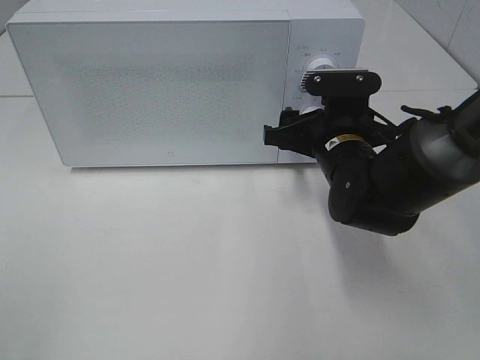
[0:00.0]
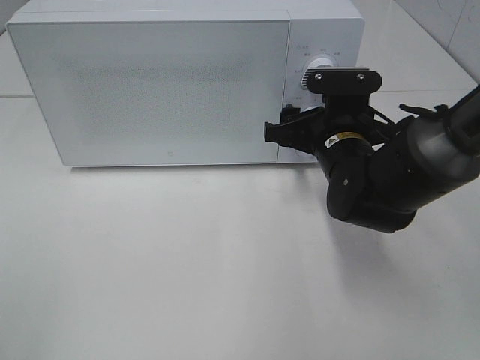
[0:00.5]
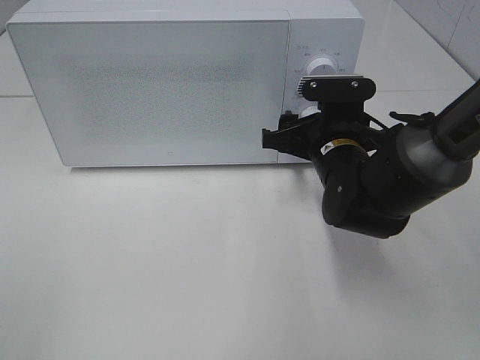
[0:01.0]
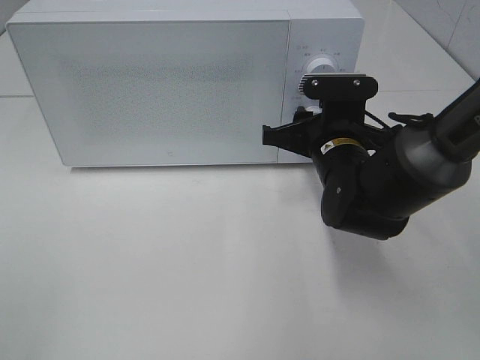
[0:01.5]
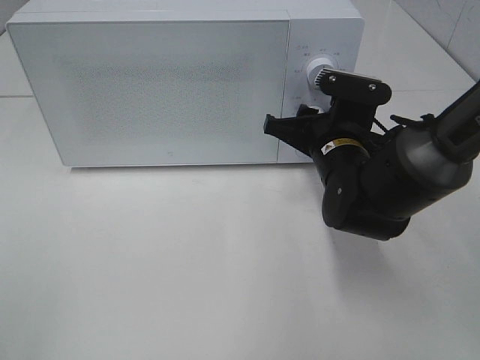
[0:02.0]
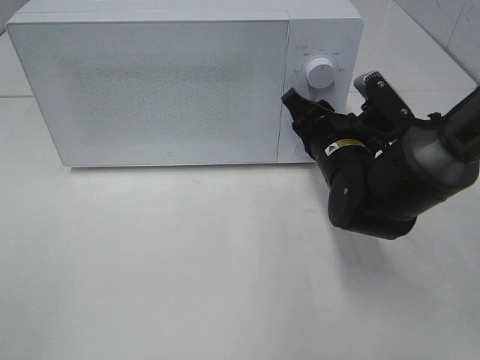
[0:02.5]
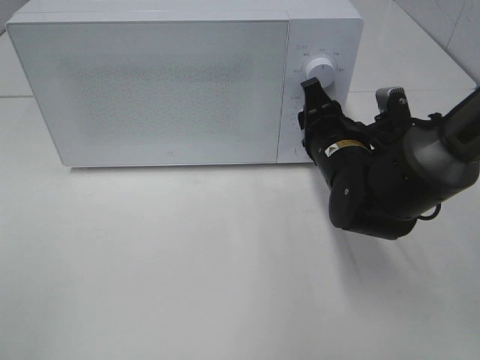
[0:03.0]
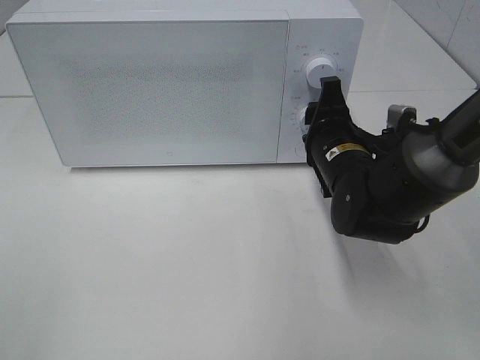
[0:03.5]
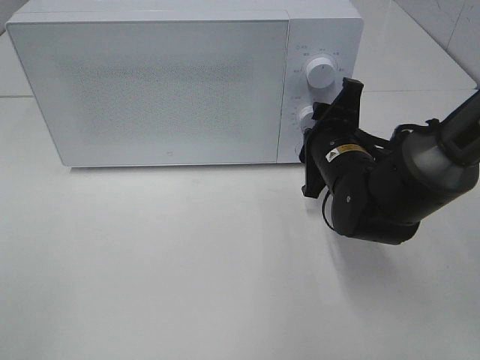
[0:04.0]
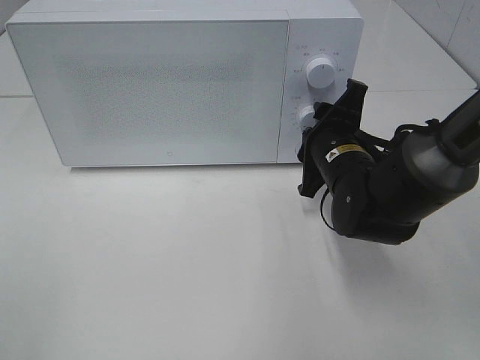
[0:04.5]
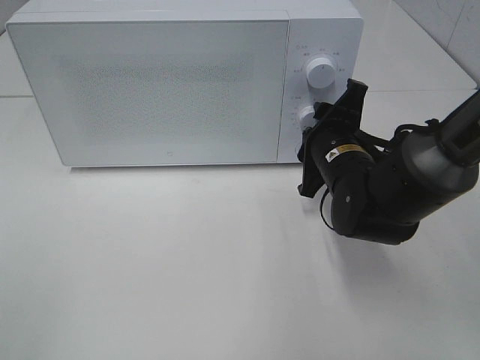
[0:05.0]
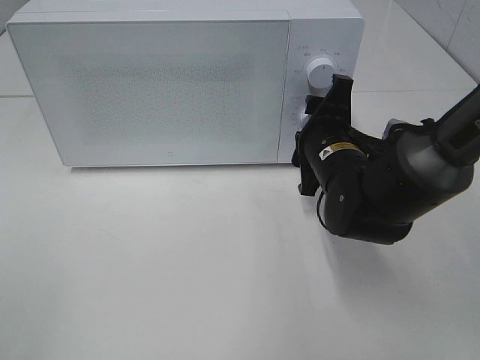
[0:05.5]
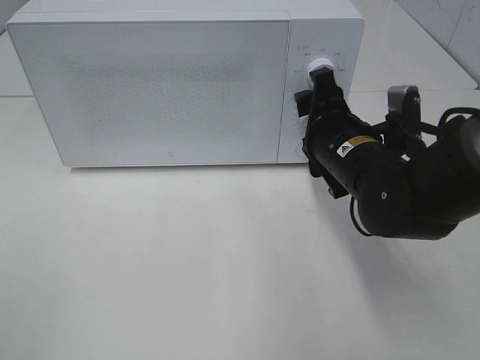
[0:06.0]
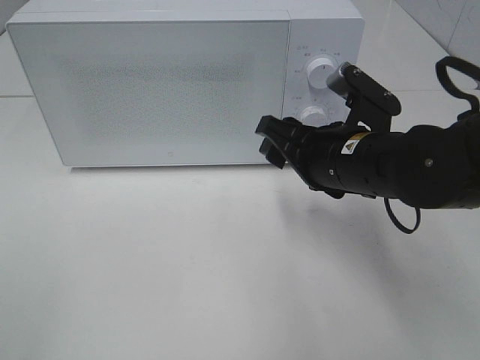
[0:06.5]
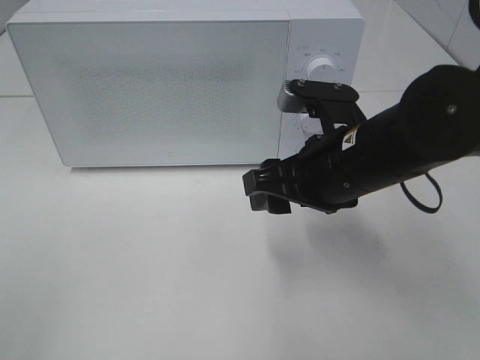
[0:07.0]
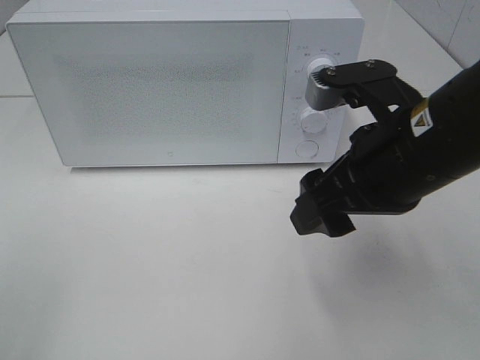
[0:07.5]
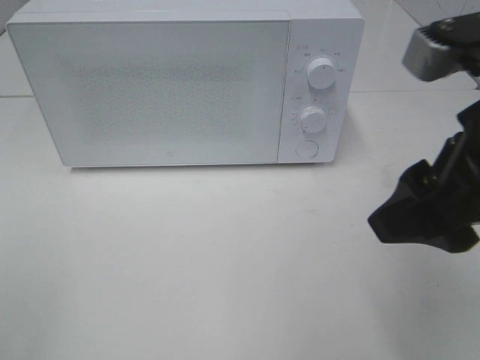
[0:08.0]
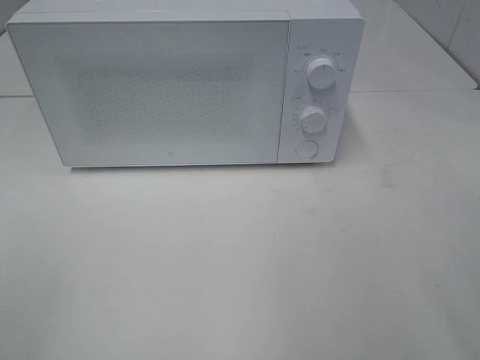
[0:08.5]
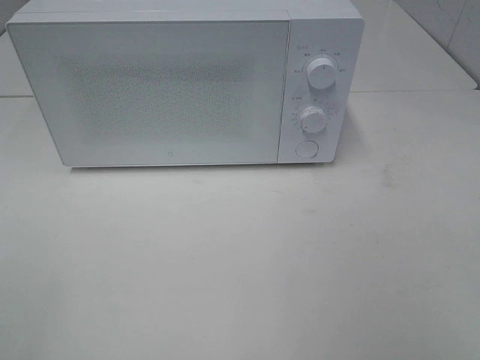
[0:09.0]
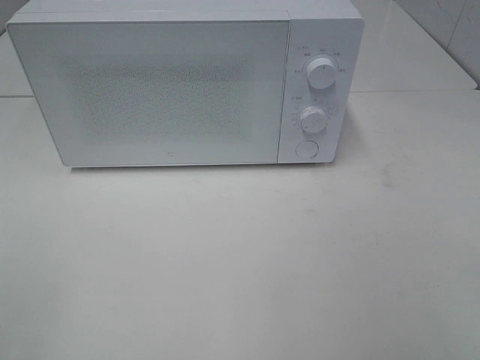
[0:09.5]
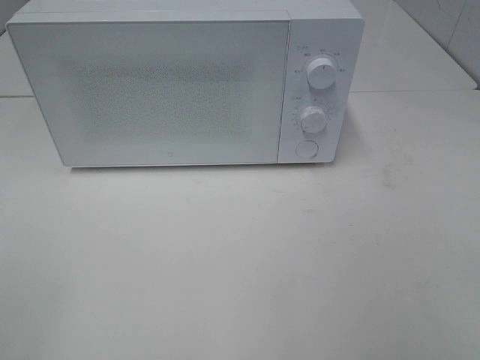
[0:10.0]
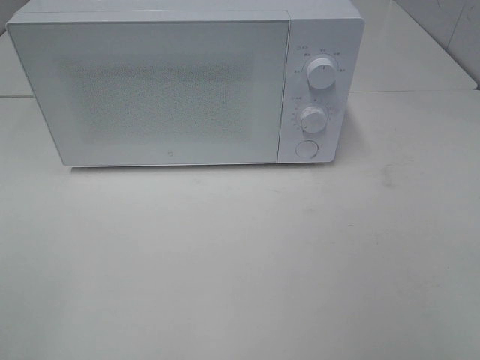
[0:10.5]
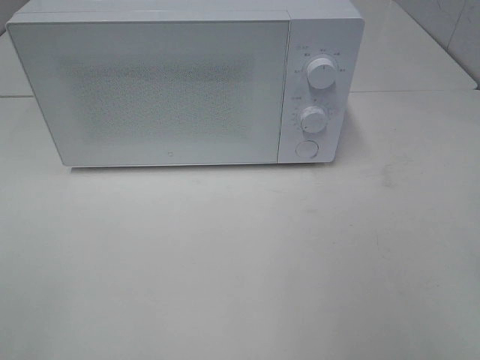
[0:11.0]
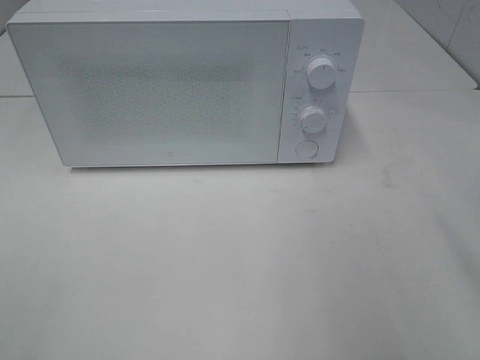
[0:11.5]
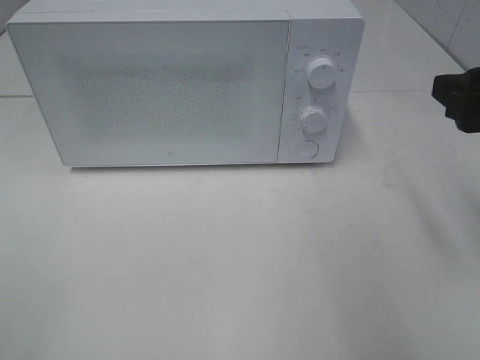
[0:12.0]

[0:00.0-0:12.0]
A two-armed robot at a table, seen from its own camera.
Task of the whole recording: Heat the burger.
Step, 0.0 to 5.5 s: Right hand: twist timer button.
0.0 to 2.0 s: The right gripper closes its fingers.
6.0 to 8.0 s: The right gripper heads upward and backward, covering approximately 20 cm.
8.0 to 10.0 s: The right gripper goes approximately 20 cm backward and to the right.
10.0 to 12.0 s: The right gripper heads forward, covering approximately 20 cm.

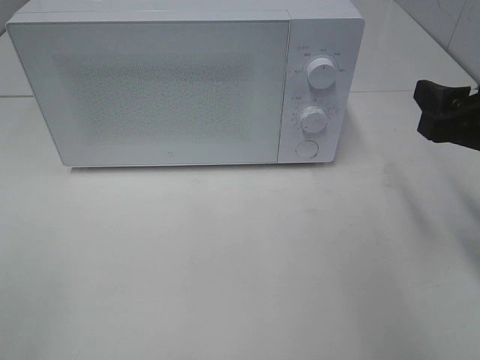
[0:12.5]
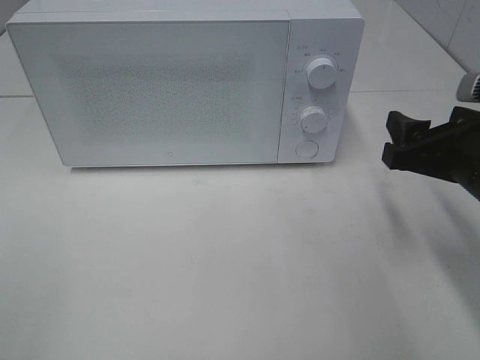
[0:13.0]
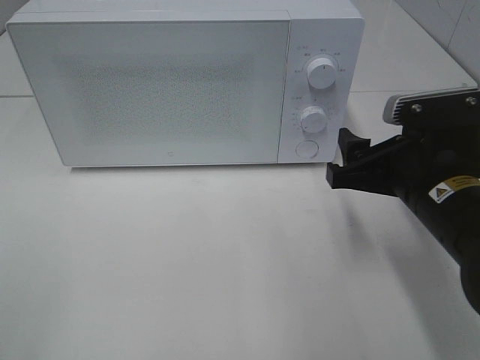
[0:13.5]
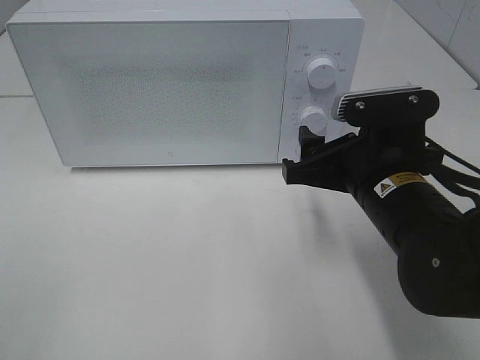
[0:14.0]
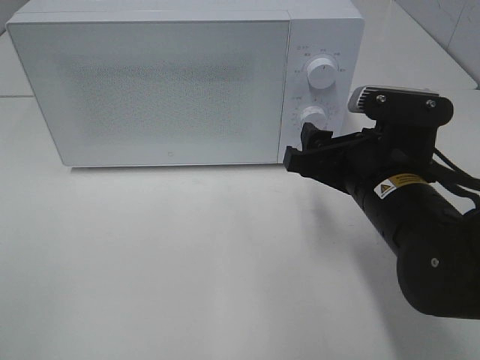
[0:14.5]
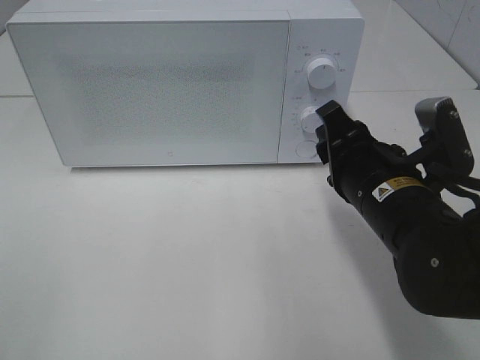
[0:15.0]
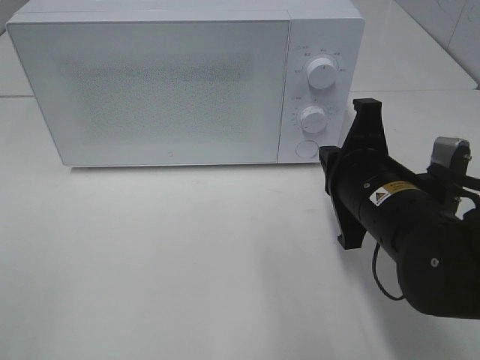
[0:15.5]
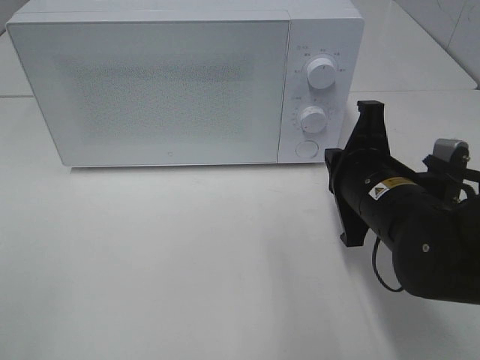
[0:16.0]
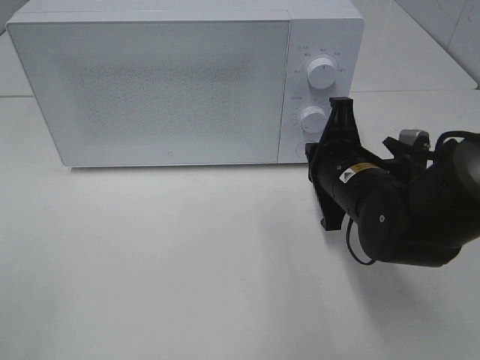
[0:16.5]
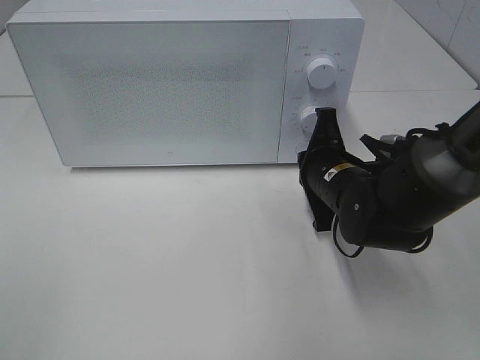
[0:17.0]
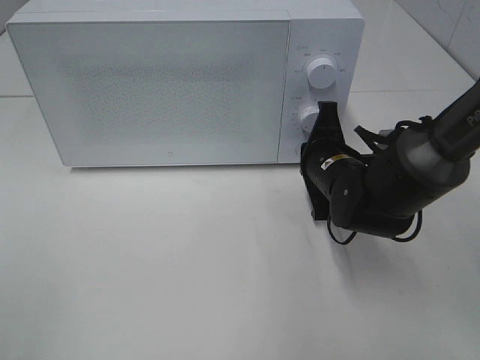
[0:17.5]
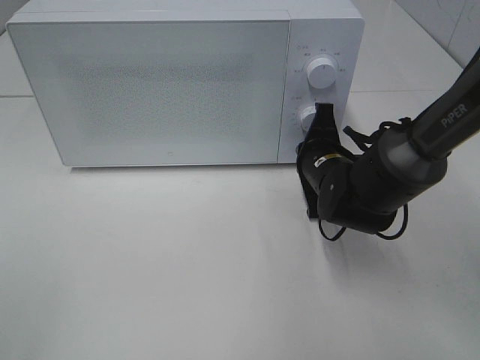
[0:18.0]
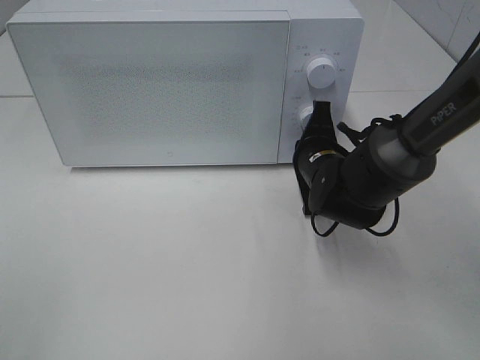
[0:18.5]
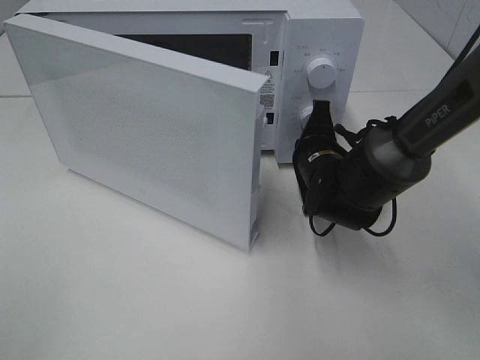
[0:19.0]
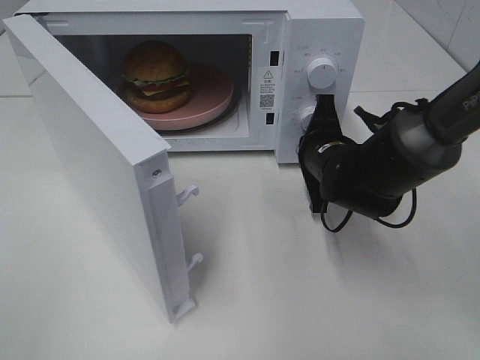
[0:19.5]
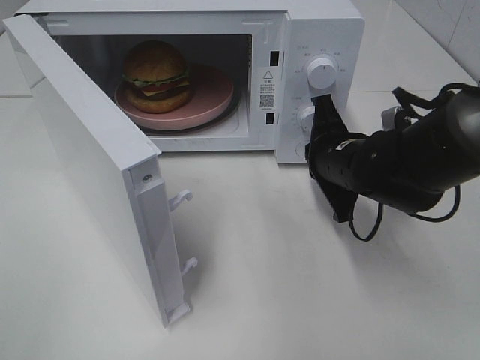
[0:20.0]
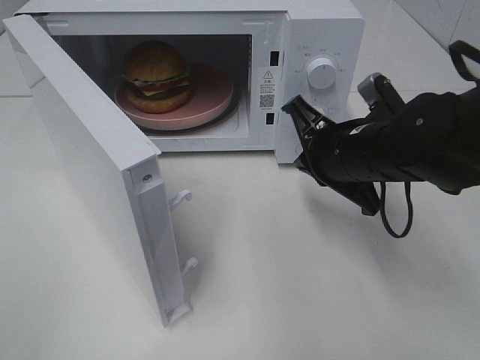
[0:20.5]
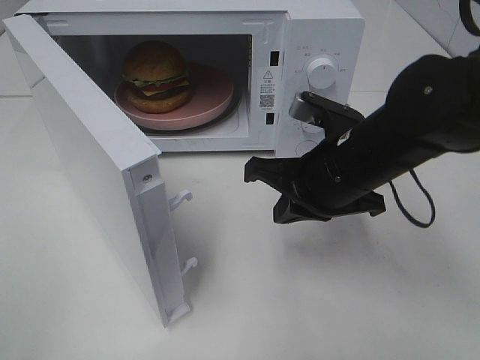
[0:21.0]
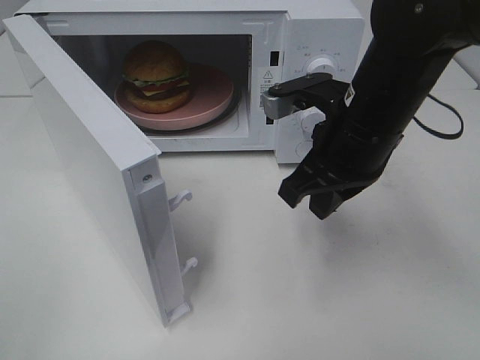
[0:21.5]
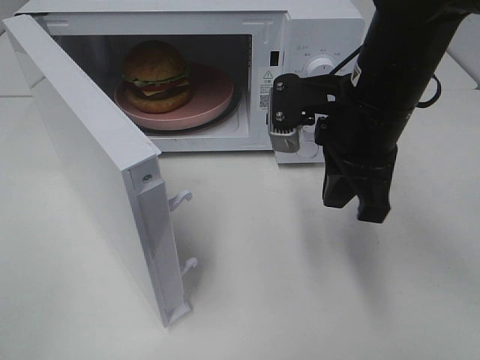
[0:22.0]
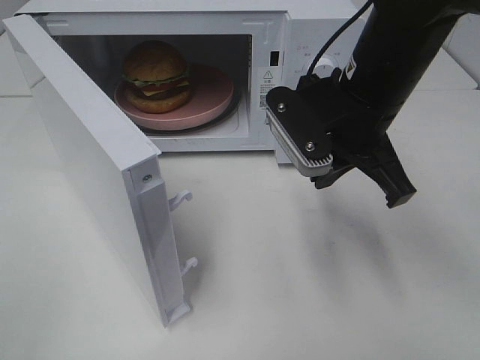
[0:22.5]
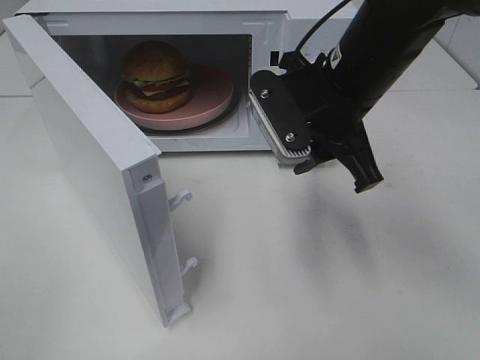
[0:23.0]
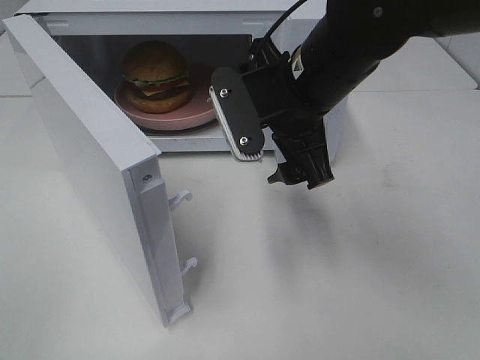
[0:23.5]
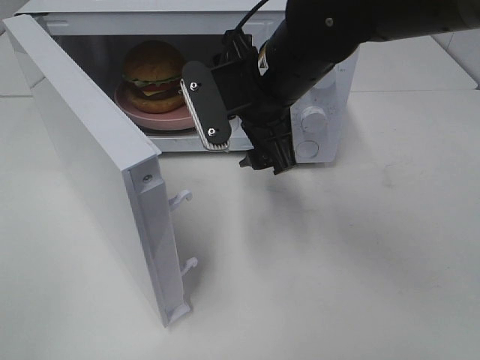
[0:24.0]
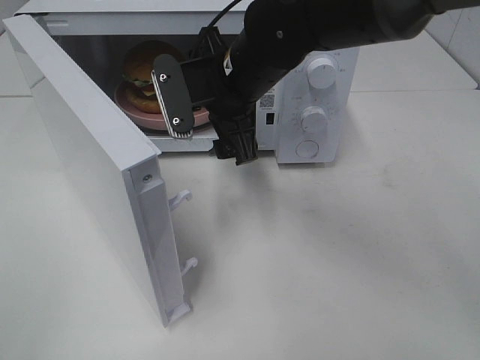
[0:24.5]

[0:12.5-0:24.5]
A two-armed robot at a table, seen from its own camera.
Task of the whole recording: Heat the burger.
Step, 12.5 to 19.5 s: Right hand: press the switch.
12.5 to 14.5 s: The right gripper travels to the left and downward by roughly 15 cm.
14.5 to 16.5 s: The right gripper is displaced forward by approximately 5 cm, and closes.
16.5 to 18.5 s: The right gripper is displaced forward by about 5 cm.
18.5 to 20.5 s: The right gripper goes approximately 10 cm upward and backward.
20.5 to 22.5 s: The right gripper is displaced upward by roughly 10 cm.
22.5 to 24.5 s: The right gripper goes about 10 cm to the left and forward, and opens its fingers.

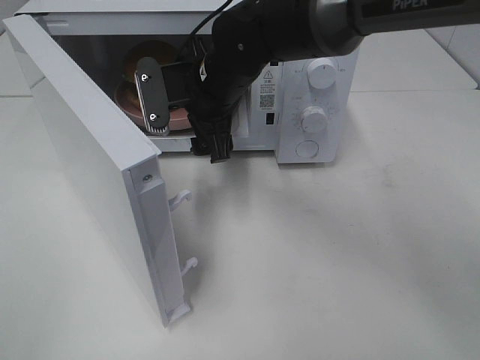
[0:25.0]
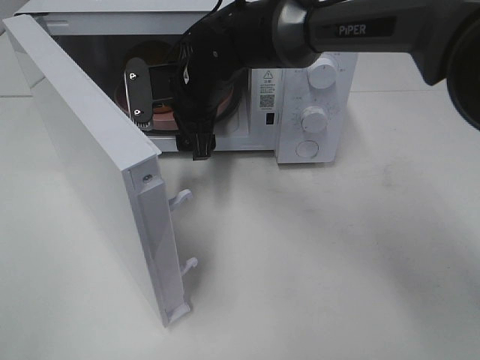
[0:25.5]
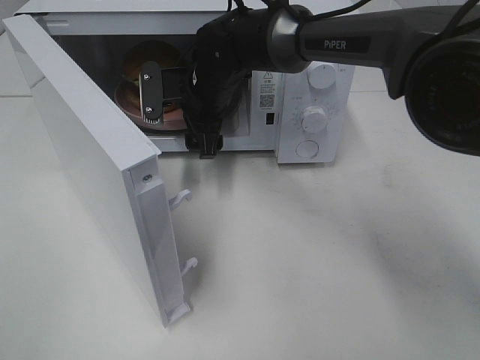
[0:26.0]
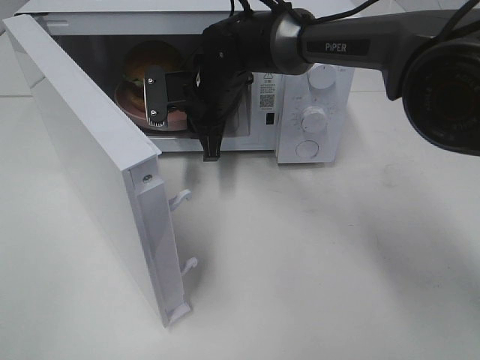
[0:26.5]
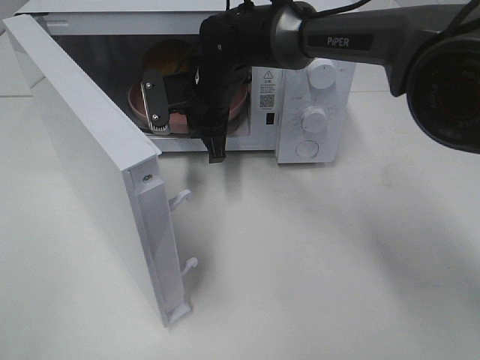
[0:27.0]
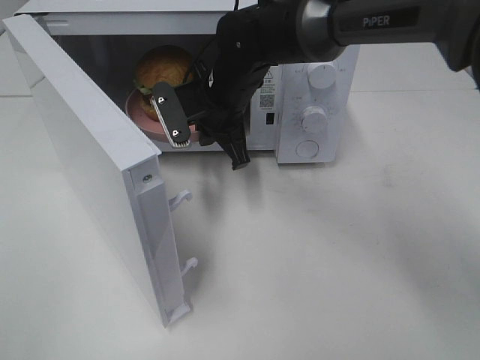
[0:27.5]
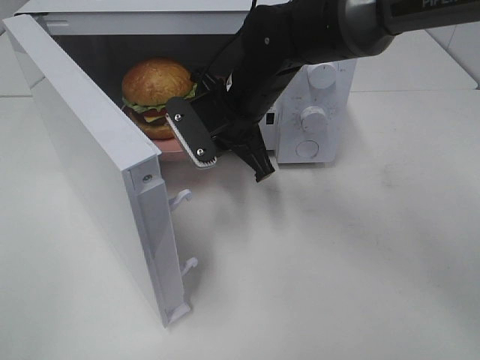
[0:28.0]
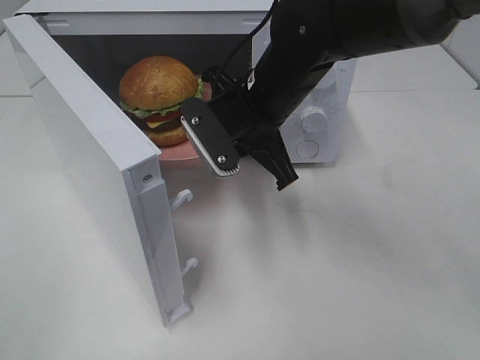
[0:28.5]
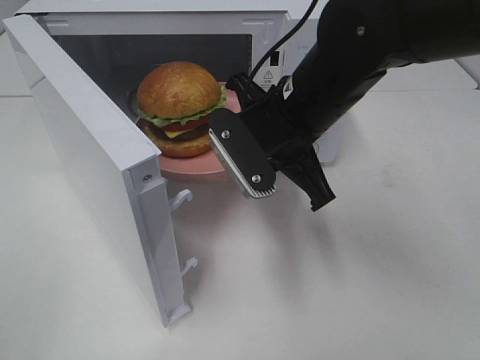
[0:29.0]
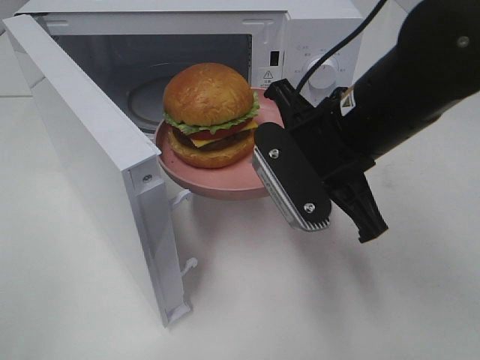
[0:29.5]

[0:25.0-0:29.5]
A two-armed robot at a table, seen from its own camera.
Task of the whole recording: Heat the burger.
25.0 to 27.0 s: The right gripper heads forward, covering about 5 cm, and closes its fingers.
27.0 to 29.5 s: The right gripper heads backward and to the right, covering roughly 25 cm.
